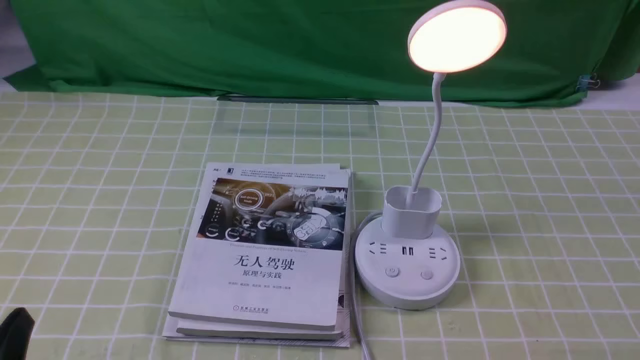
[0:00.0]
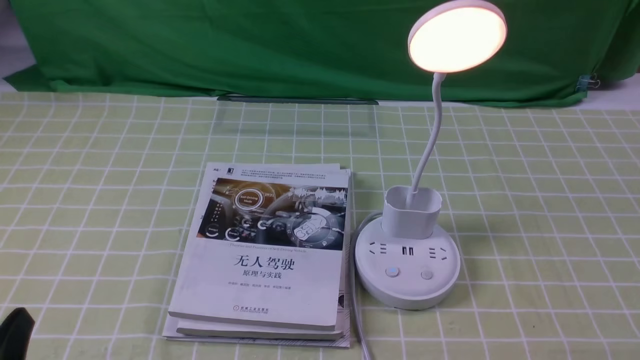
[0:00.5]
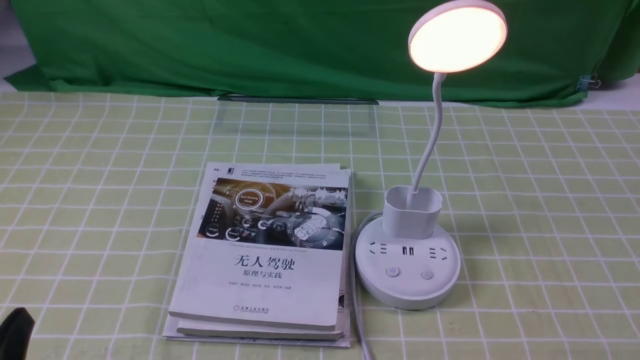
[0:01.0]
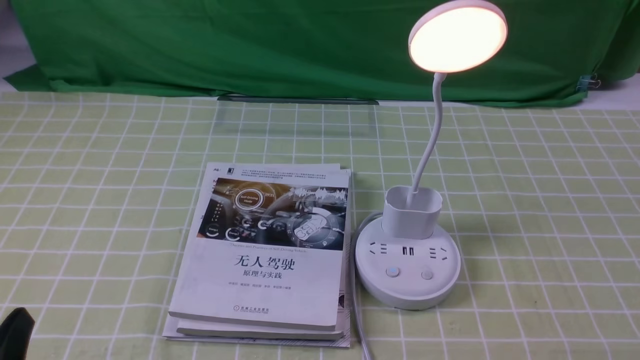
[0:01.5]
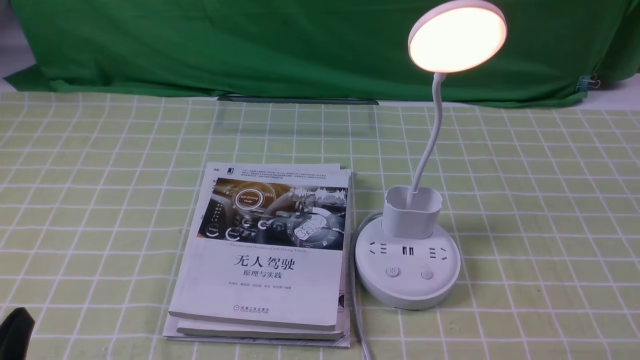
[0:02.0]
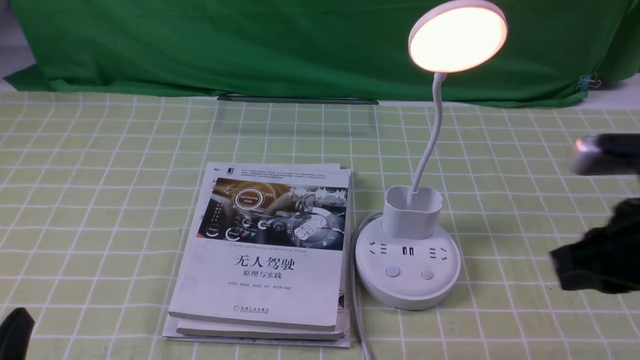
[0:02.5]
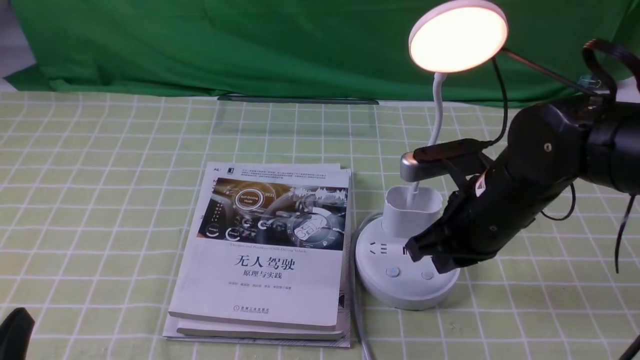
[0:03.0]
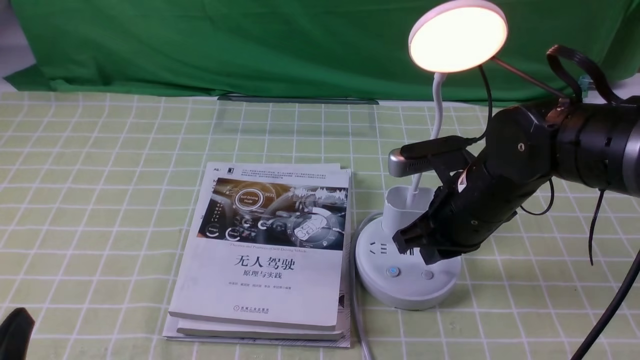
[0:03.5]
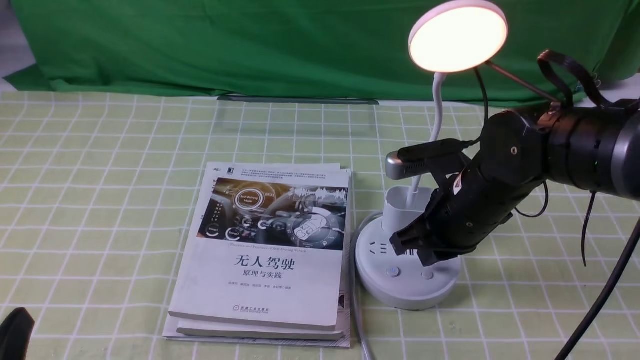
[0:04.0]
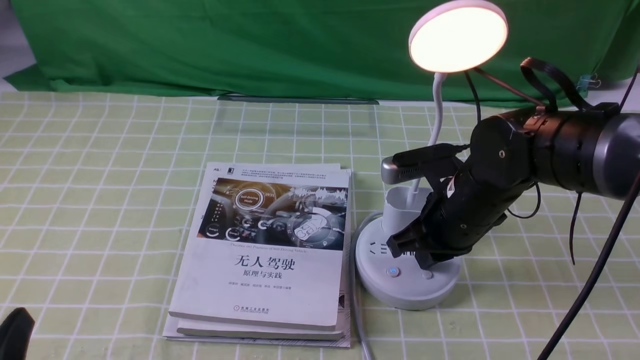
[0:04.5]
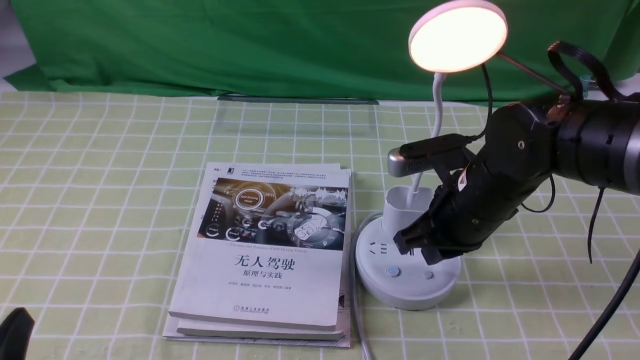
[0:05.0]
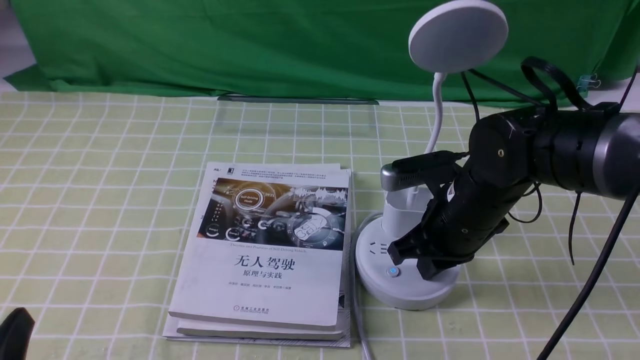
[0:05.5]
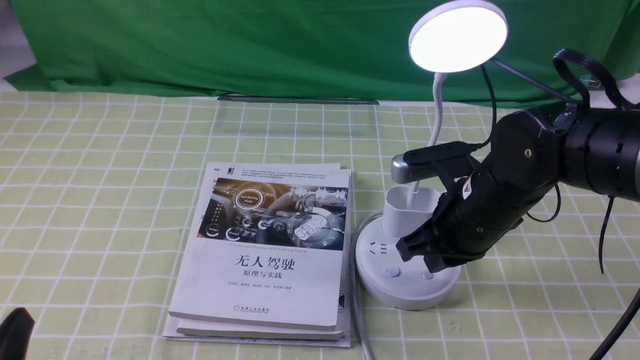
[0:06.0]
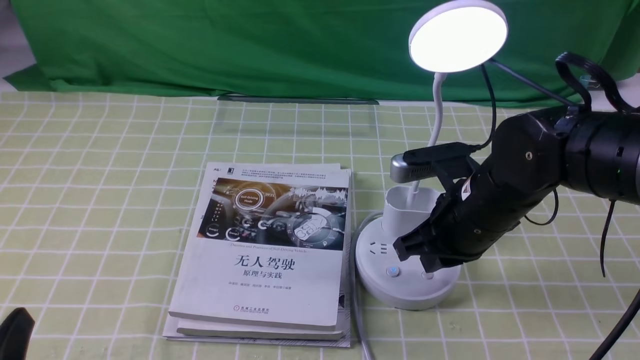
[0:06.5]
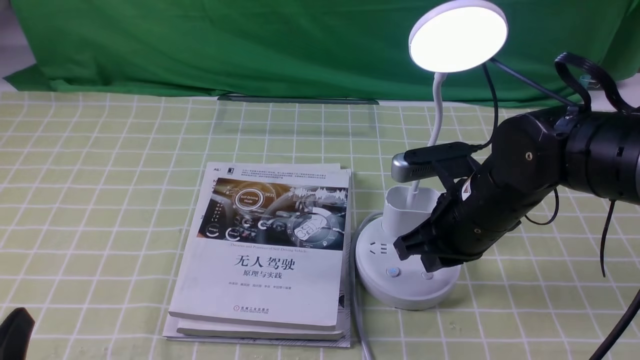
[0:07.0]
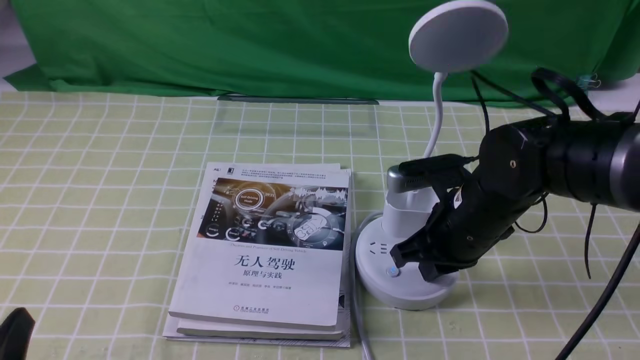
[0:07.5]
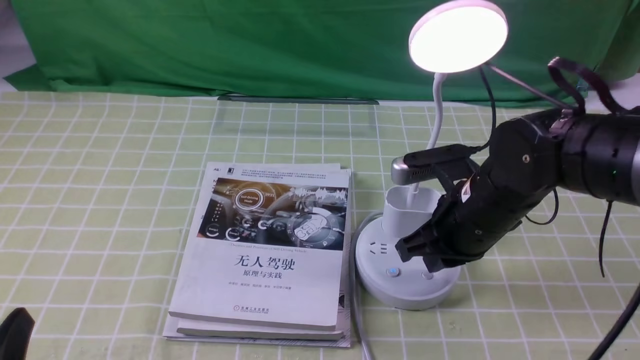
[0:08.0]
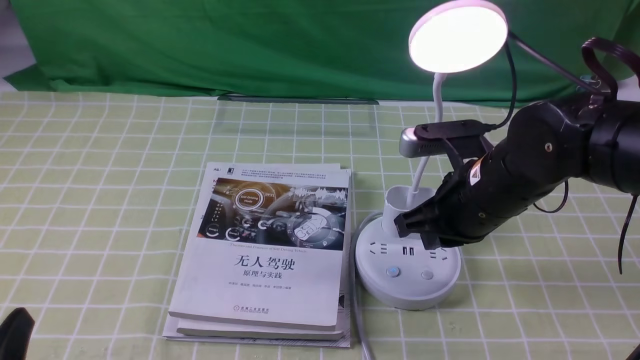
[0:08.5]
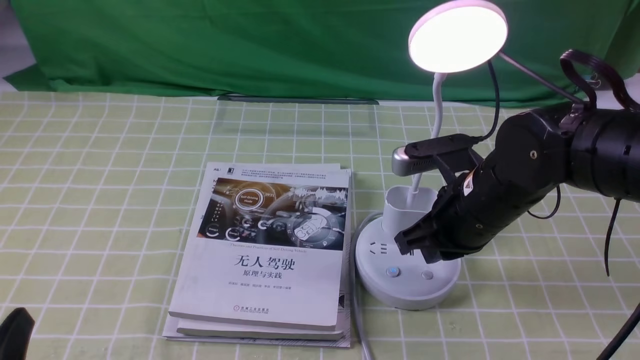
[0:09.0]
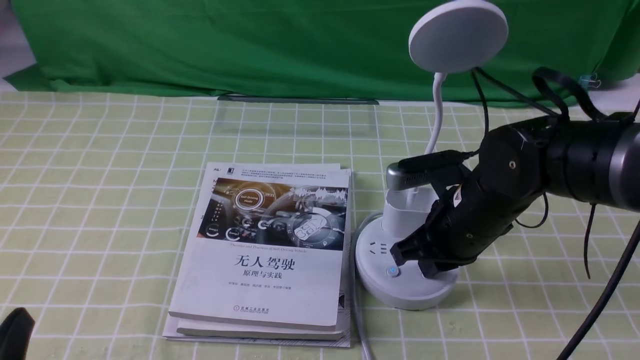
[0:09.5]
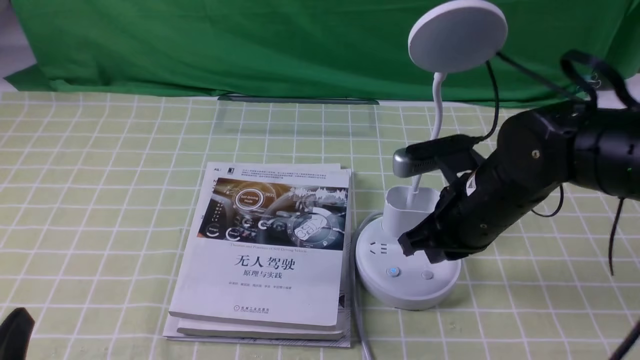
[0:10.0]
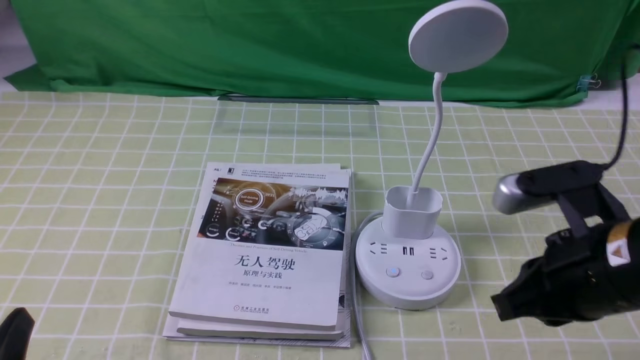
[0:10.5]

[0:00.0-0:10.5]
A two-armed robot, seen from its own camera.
Task of the whole recording: turn off the desk lamp on the green coffee tablecloth by hand.
Step, 0:00.0 to 0:10.0: use the right arm to press the button switch on the lamp holder.
0:02.0 to 0:04.0: The right gripper is displaced forward and to the left by approximately 30 cm.
0:04.0 to 0:08.5: The grippers stay close to where they were, moving slightly.
0:08.5 to 0:10.5: The right gripper goes some 10 cm backward and to the right.

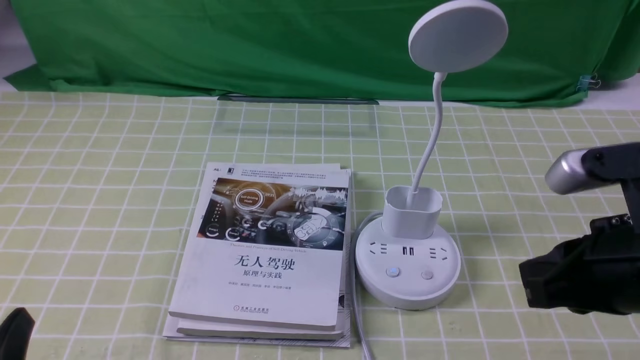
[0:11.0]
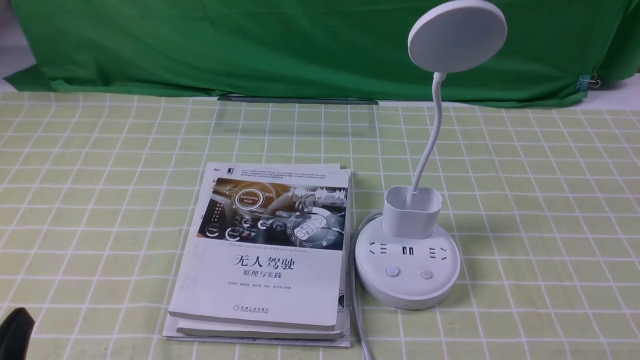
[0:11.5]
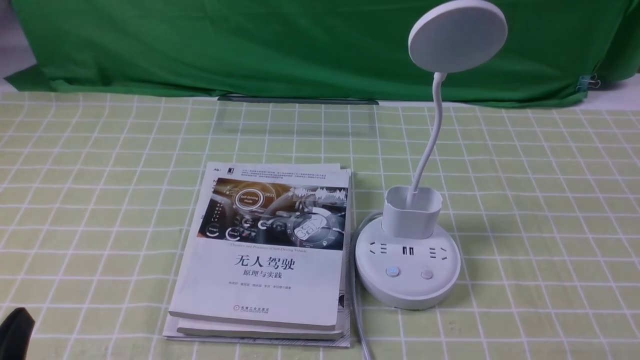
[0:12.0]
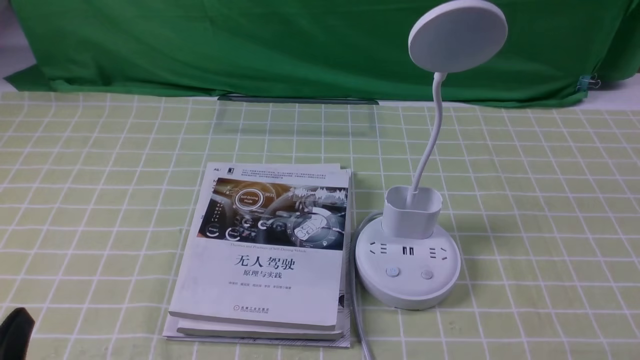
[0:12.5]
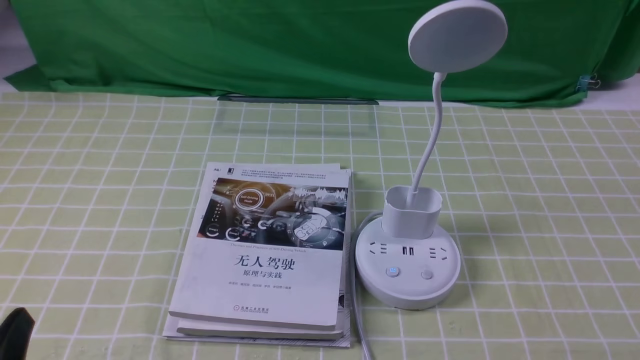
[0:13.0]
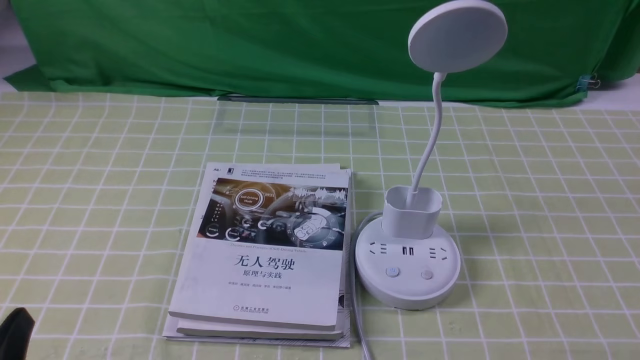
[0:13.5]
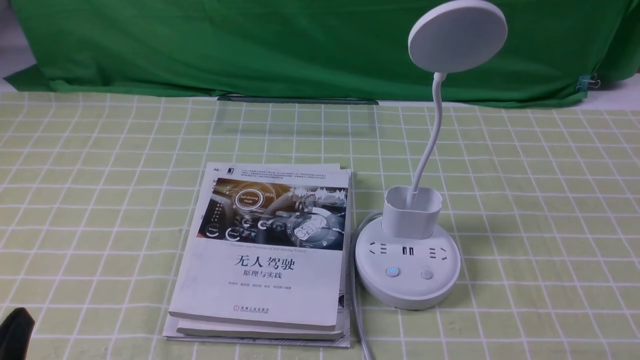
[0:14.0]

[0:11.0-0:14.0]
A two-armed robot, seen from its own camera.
Task of the whole recording: turn off the desk lamp on the green coffee tablecloth by hand.
0:11.0 to 0:12.5: The right gripper goes roughly 20 cm backward, downward and to the right.

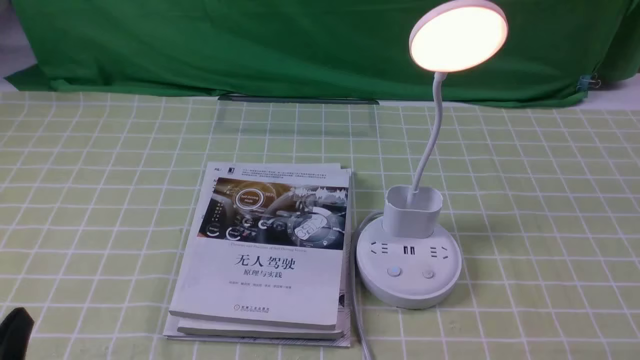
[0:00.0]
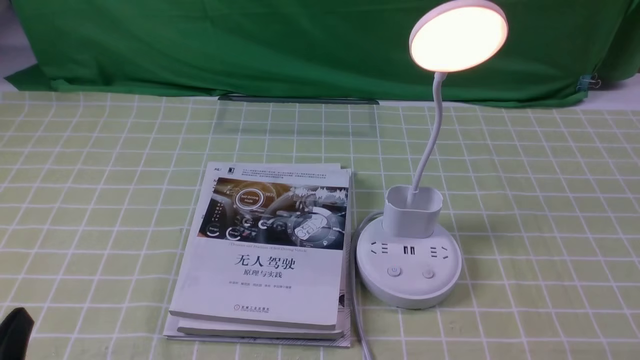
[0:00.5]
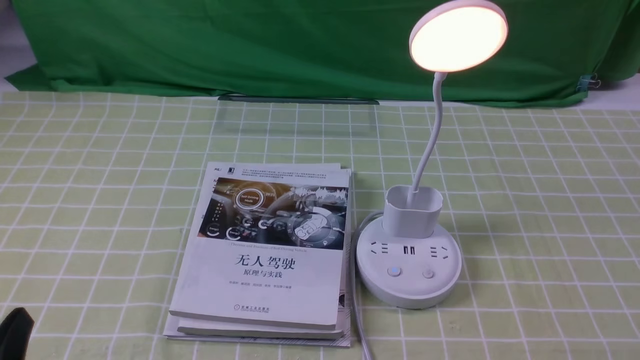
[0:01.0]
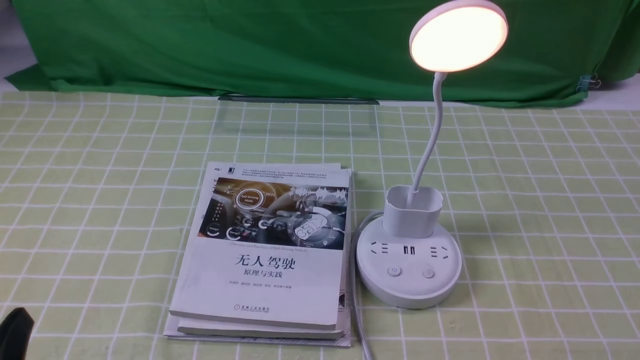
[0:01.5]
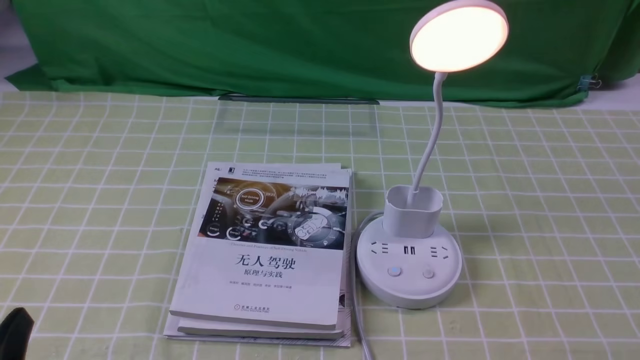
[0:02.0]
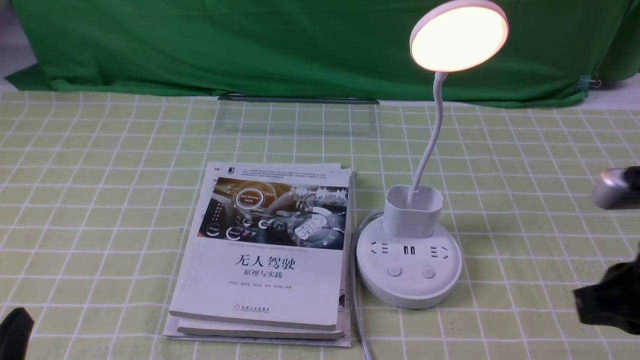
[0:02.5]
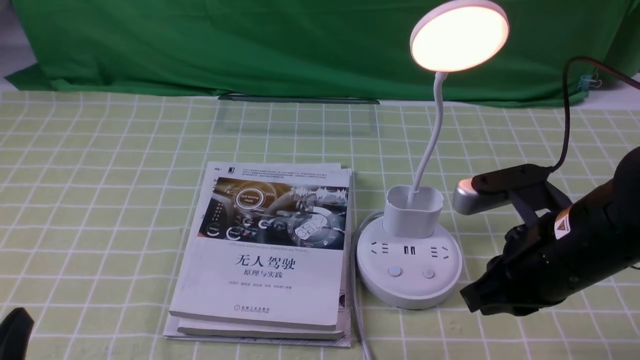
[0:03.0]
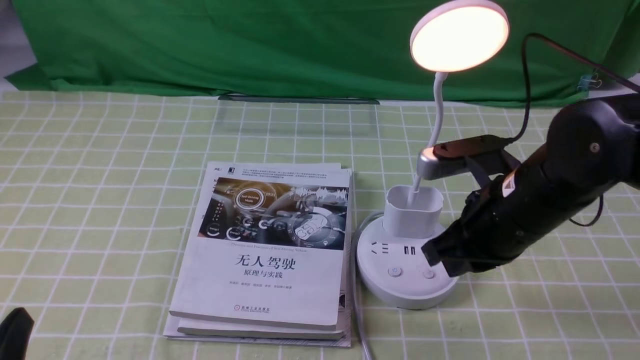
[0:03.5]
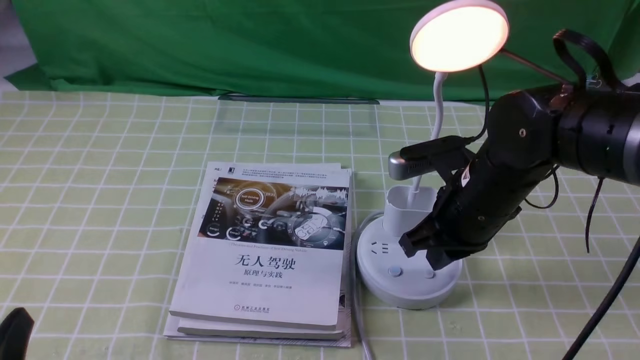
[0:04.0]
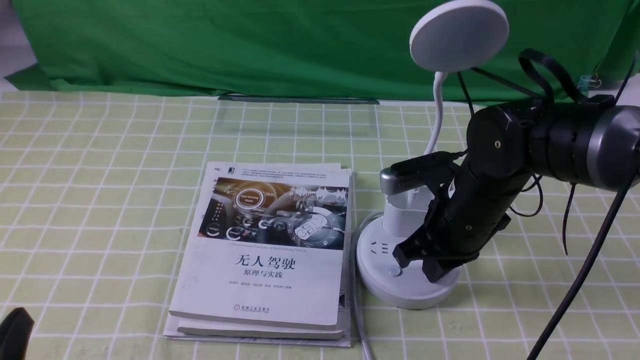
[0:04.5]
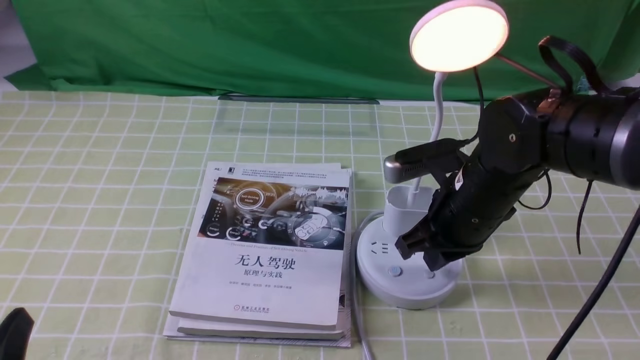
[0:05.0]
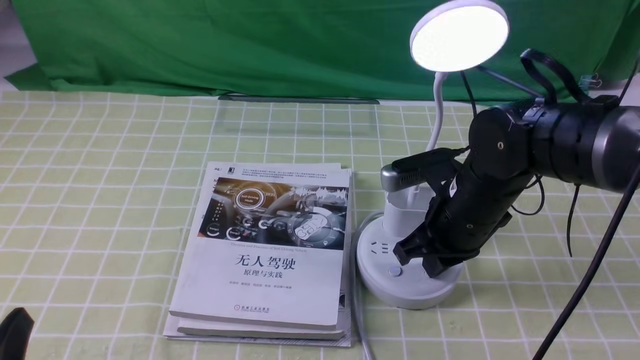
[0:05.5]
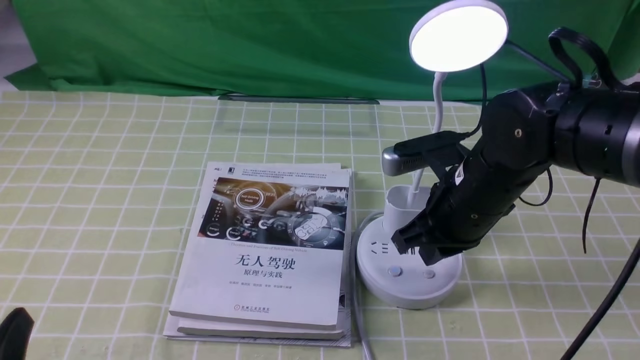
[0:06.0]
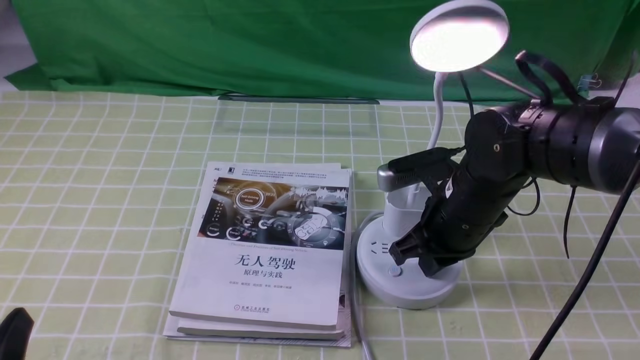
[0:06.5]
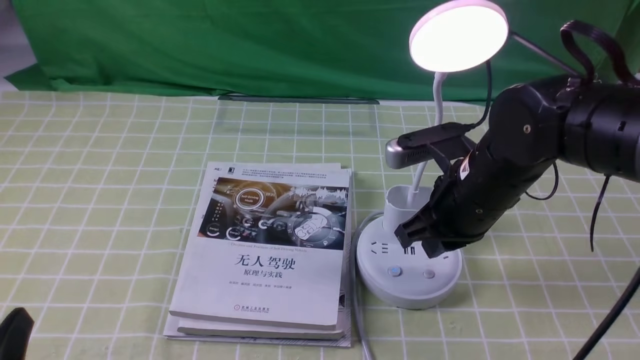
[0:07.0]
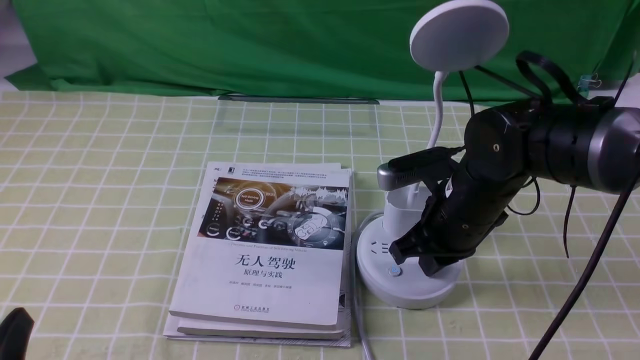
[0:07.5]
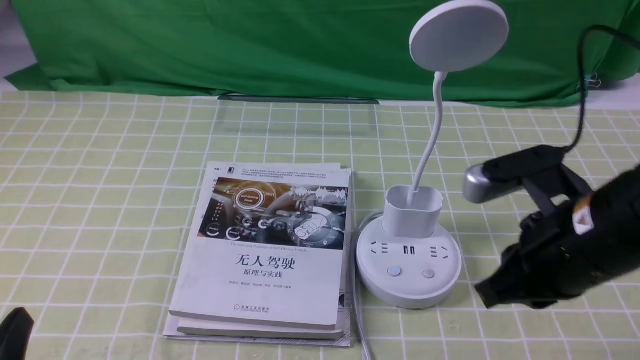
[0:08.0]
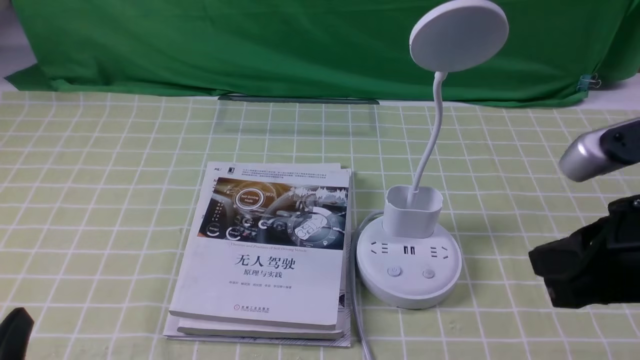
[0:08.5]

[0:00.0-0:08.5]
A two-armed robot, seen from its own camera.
Task of the whole recording: turn off the desk lamp on the green coffee tablecloth by hand.
Step, 0:00.0 to 0:07.5: use the right arm to press the button switch on the lamp holder.
0:02.0 to 0:04.0: The right gripper shifts about 30 cm forward and to the left.
0:04.0 to 0:06.5: The grippers stay close to where they were, moving slightly.
0:06.5 to 0:08.5: The right gripper travels backward, upward and to the right by approximately 20 cm.
